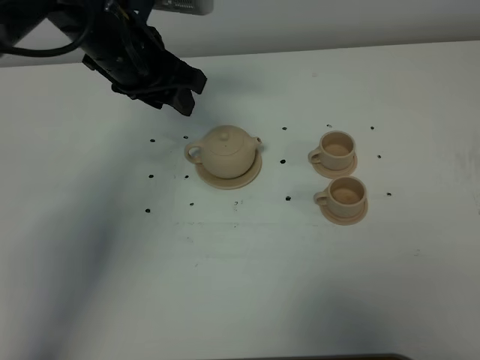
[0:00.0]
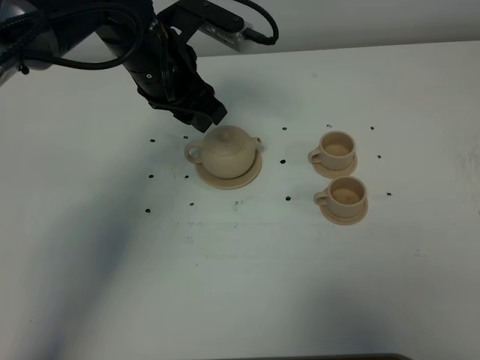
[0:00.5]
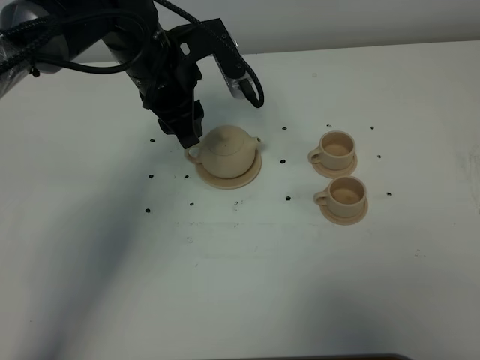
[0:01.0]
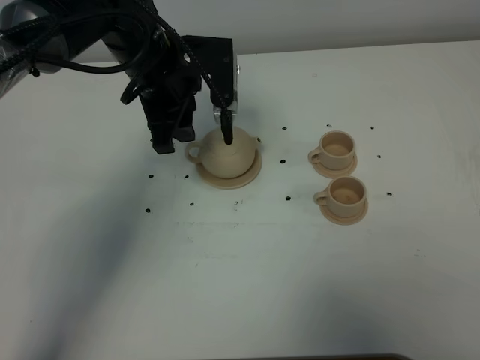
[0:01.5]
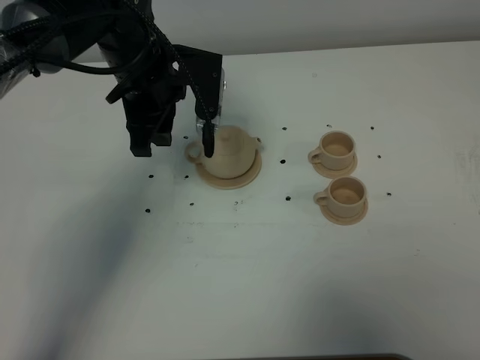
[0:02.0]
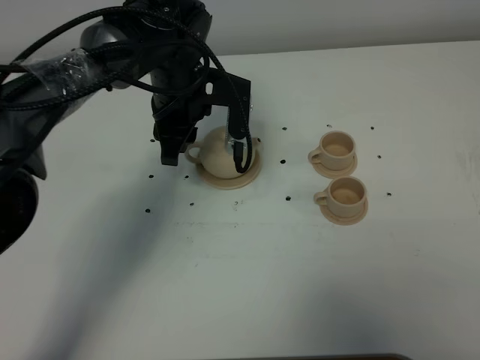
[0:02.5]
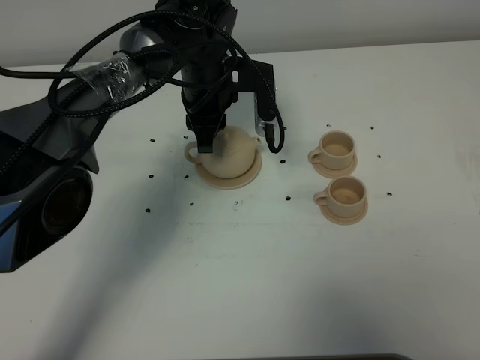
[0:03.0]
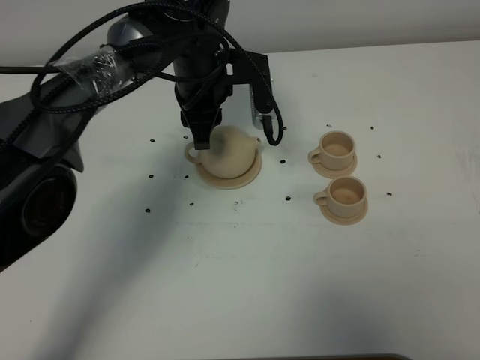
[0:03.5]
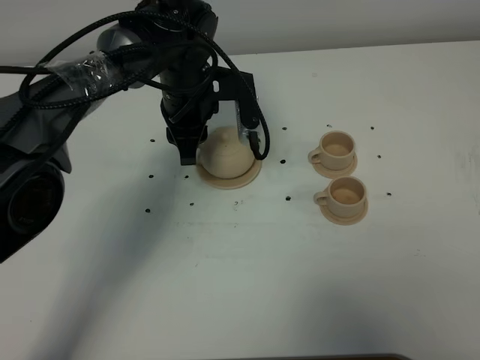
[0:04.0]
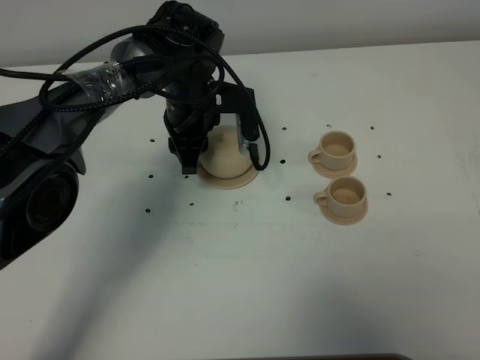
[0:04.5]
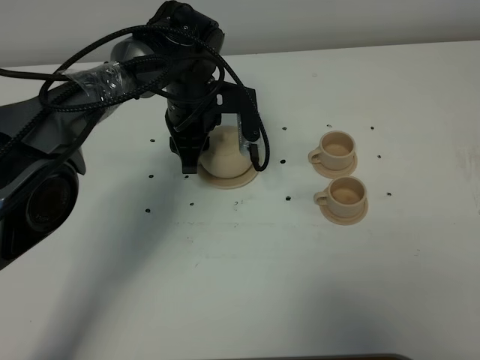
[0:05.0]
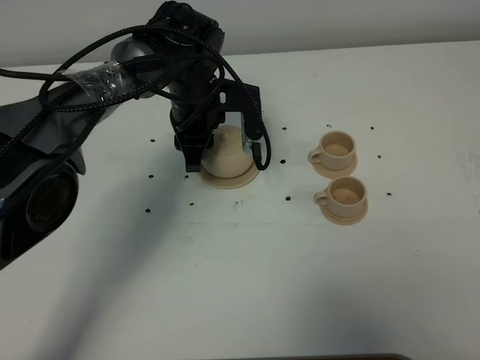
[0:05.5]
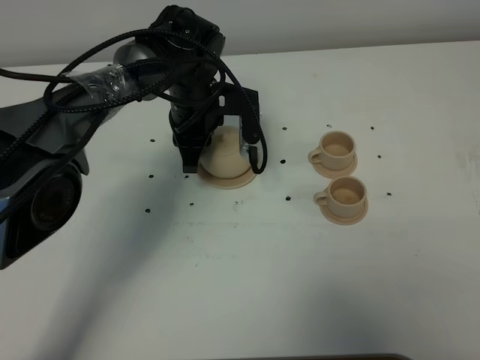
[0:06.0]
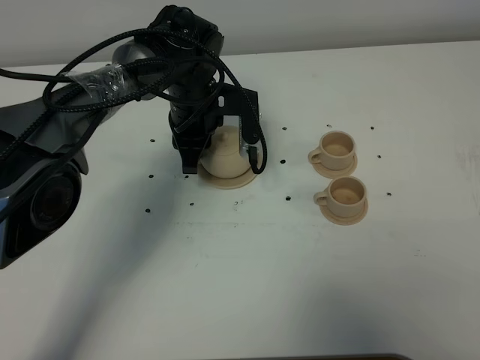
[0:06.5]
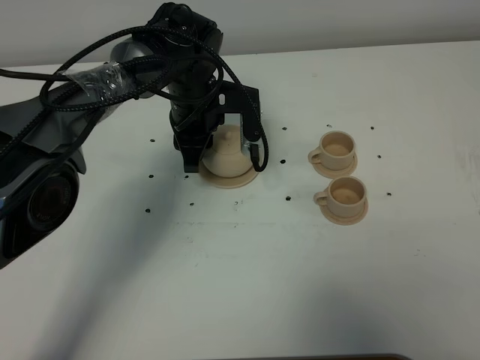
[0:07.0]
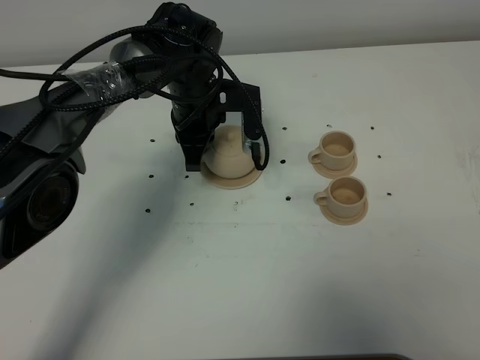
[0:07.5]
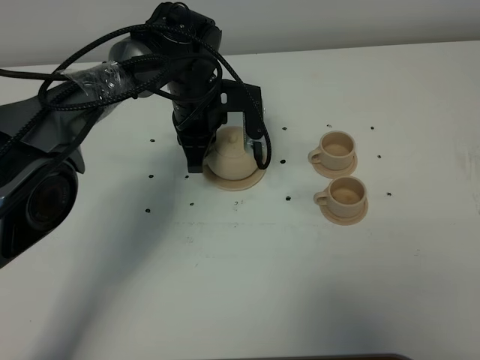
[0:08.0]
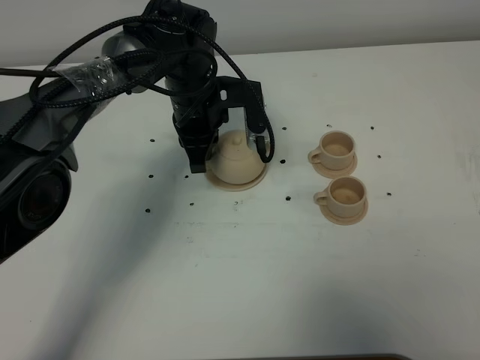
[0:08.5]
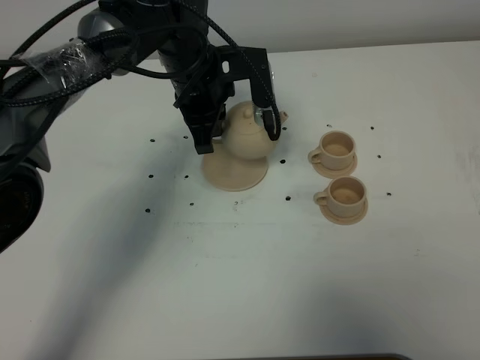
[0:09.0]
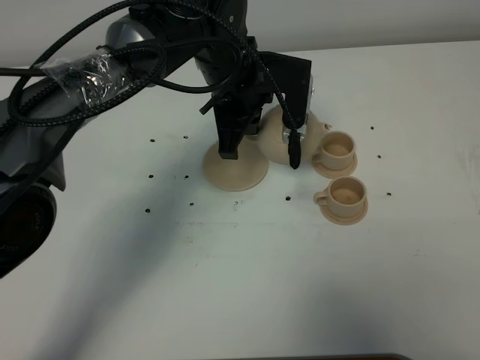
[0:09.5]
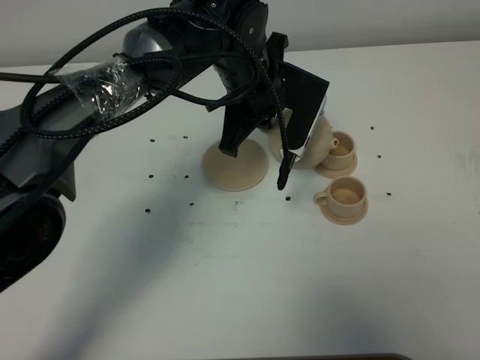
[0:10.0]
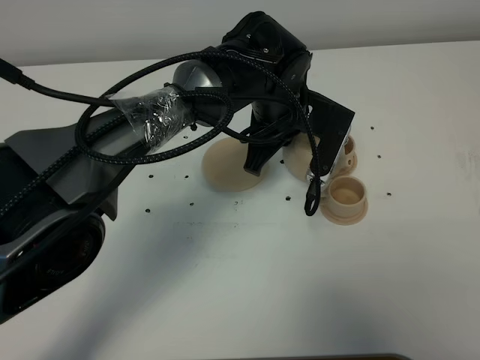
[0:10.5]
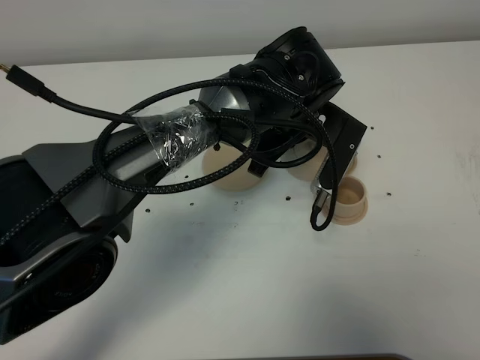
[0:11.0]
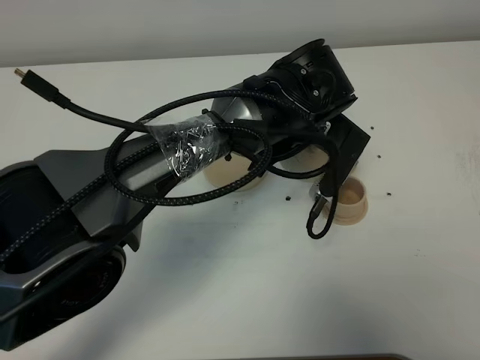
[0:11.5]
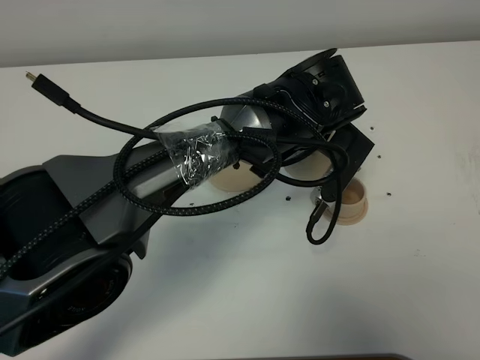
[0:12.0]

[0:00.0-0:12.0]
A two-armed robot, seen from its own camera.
Task of the whole recording: grasp the brown teapot and pour the tea into the two brown teacups one by one, put the brown teapot back in its original place.
Step, 0:00.0 to 0:08.5: Pick up the teapot with the left gripper.
0:02.0 to 0:04.0: The left gripper goes about 5 cm downward.
0:04.0 to 0:06.0: The left gripper closes up.
0:06.0 to 0:08.0: The left gripper opens, then closes again.
0:08.0 to 0:10.0: The left gripper heads to the right and upward, covering some 10 cm.
0:10.0 to 0:12.0: The left gripper moves to the right, about 5 cm.

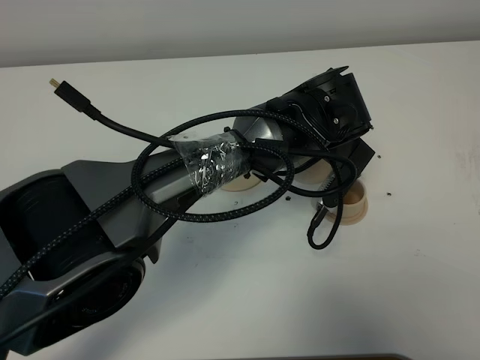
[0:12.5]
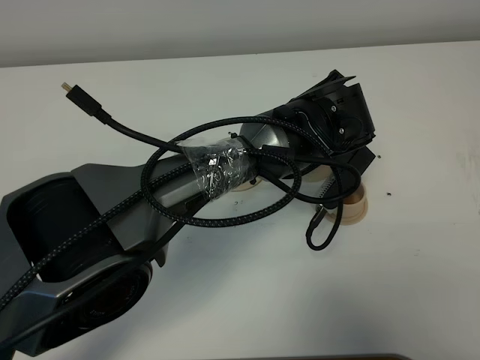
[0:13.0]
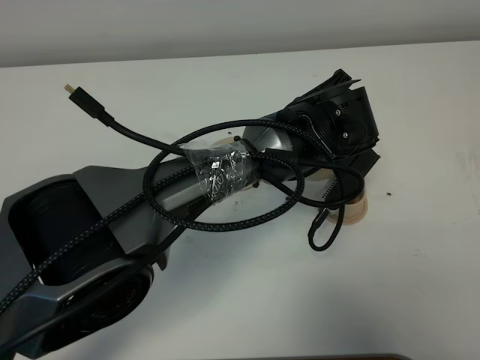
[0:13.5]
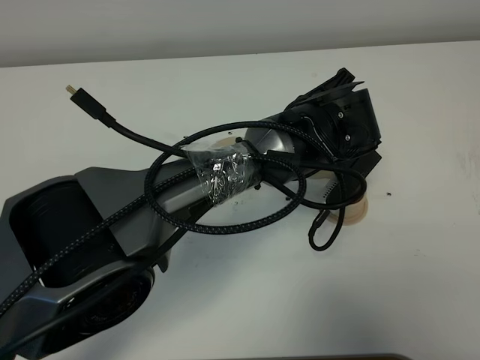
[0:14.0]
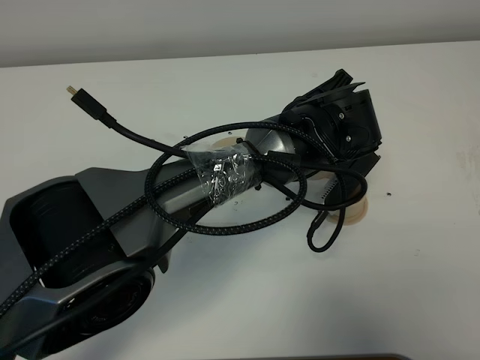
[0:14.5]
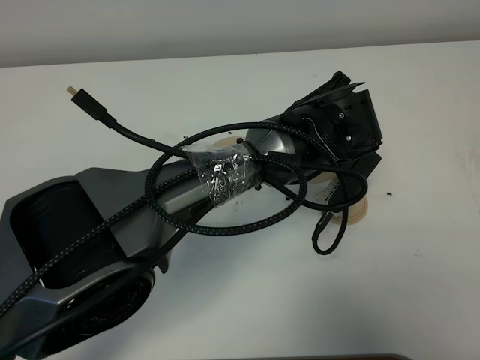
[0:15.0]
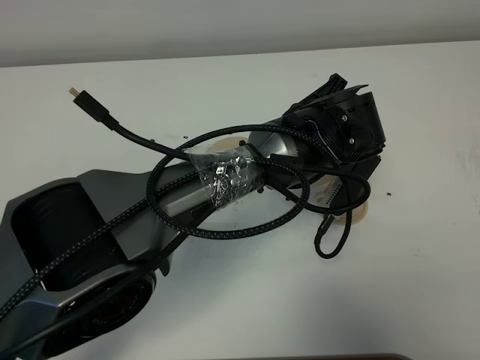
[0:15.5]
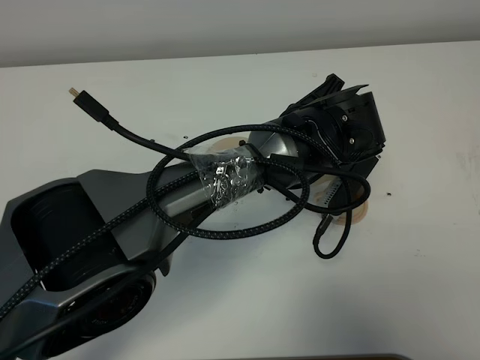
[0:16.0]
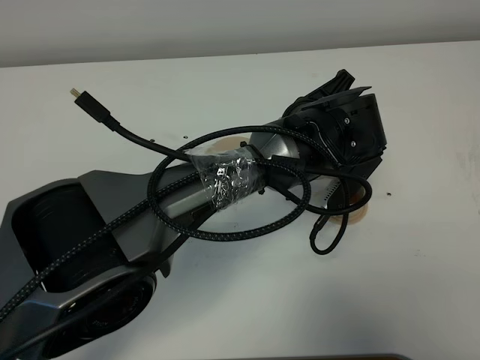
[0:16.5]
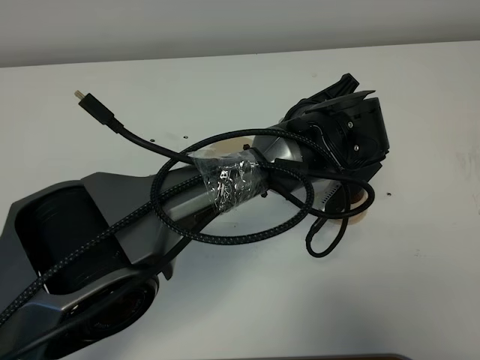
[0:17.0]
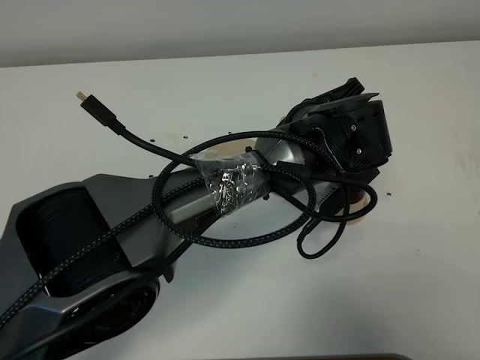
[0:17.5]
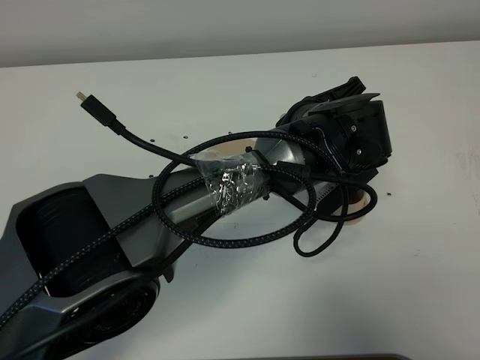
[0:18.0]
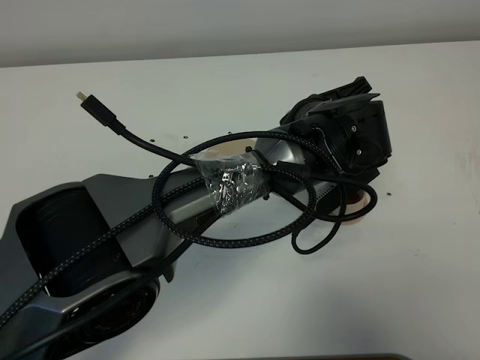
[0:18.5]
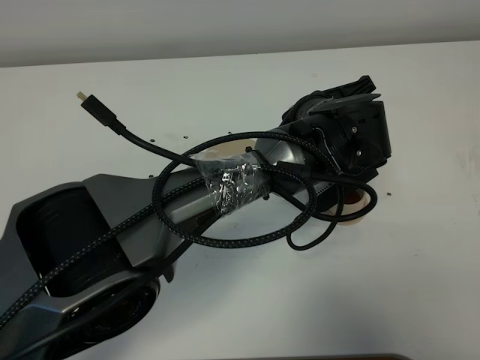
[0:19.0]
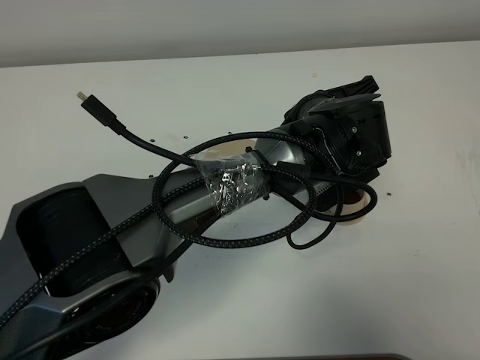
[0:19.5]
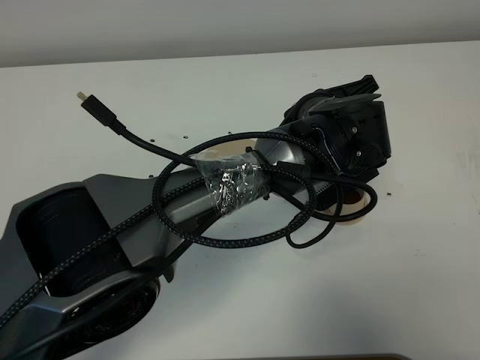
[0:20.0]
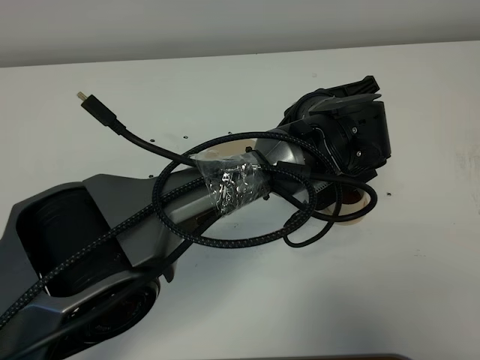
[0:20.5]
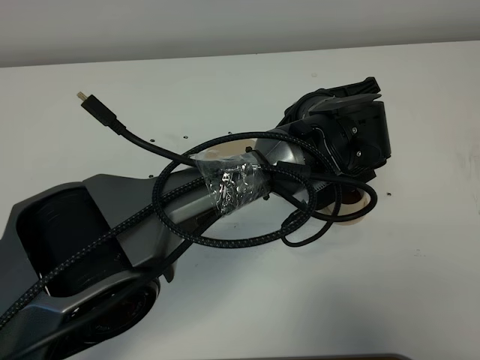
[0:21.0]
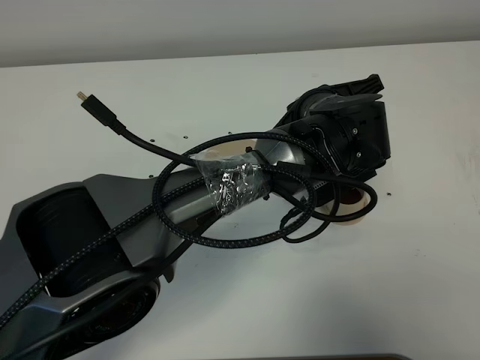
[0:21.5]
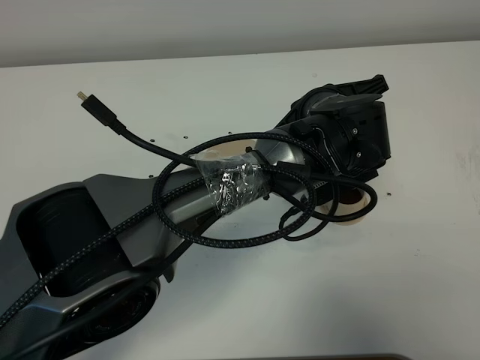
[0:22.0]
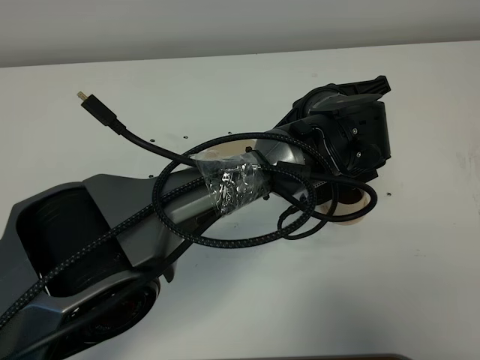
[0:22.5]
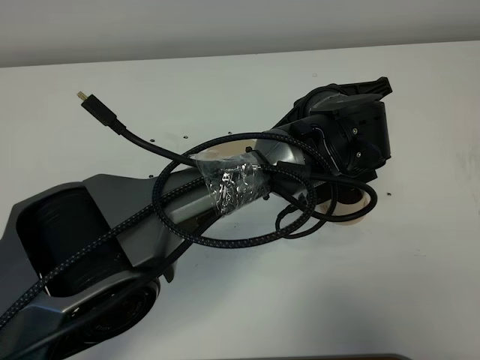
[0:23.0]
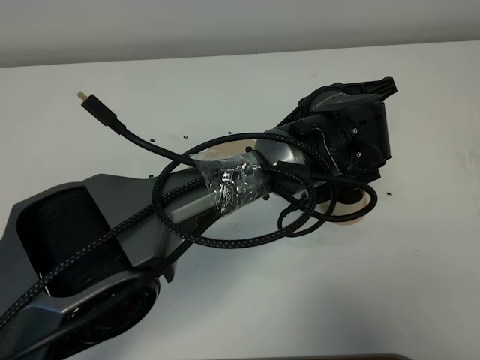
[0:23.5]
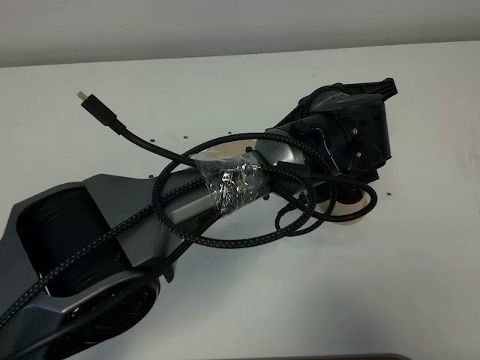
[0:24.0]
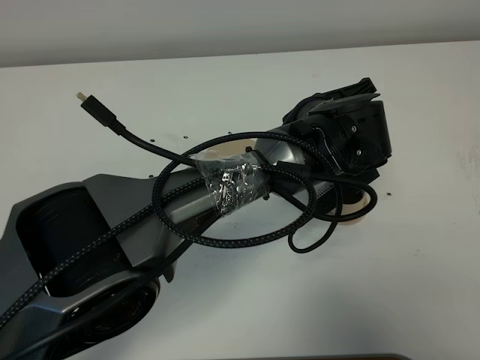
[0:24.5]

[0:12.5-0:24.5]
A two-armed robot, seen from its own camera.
Task of the whole recording: grasp the brown teapot and pour the tea into the two brown teacups one by one, put the brown teapot back in its original place.
0:12.5 to 0:18.5: There are only small adjustments of the grippers.
0:18.5 to 0:24.5: The grippers move only a little.

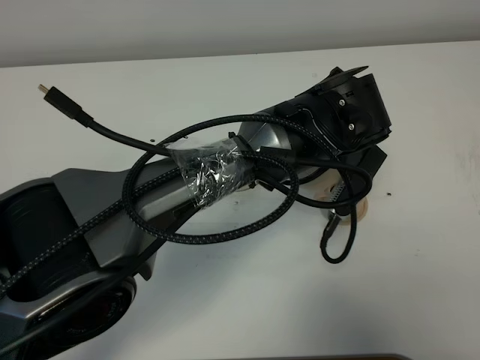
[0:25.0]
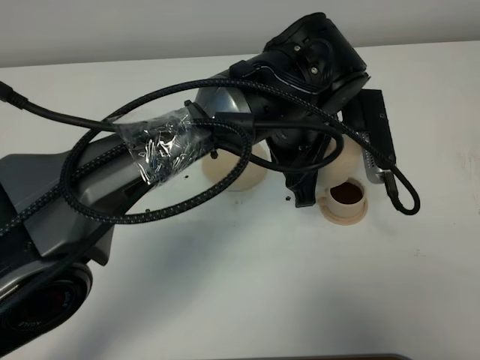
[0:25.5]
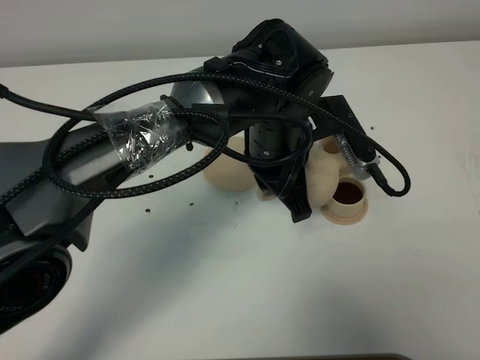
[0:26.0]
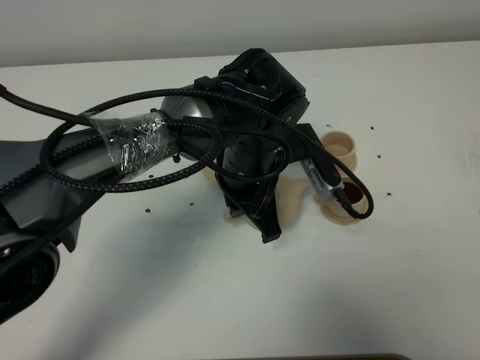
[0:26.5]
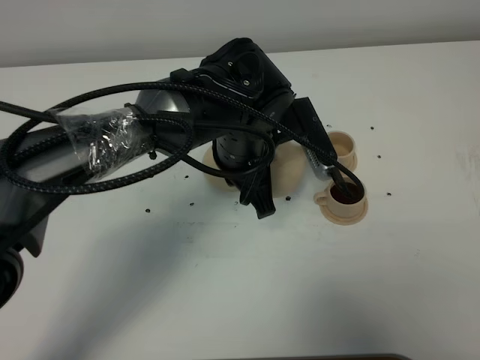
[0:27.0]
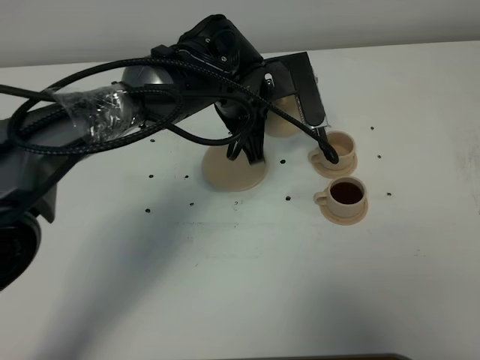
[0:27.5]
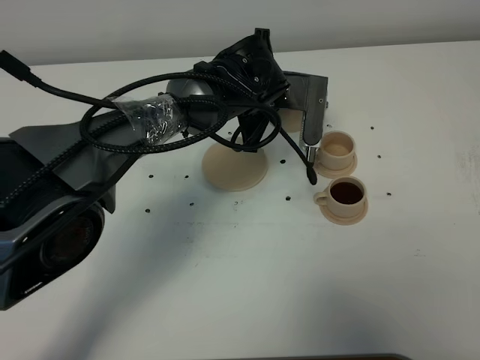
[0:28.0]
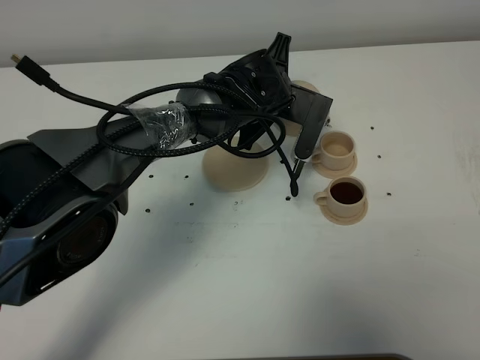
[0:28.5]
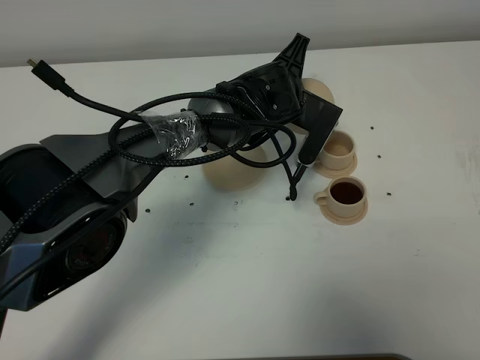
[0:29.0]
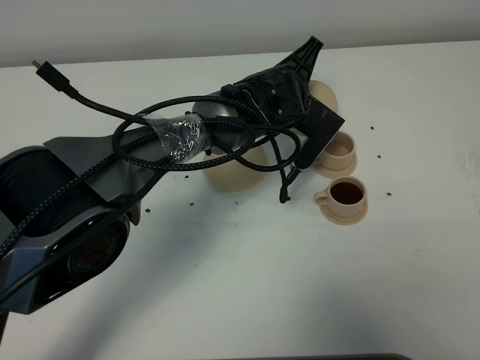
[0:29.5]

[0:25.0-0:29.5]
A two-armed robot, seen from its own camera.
Task of the whole recording: grasp the brown teapot and pour the tea into the two brown teacups one by one, put the brown teapot back in its original place.
0:25.0 to 0:27.0: The left gripper goes some 10 cm to the left.
0:27.0 to 0:29.5: The left gripper is displaced forward by some 10 cm.
